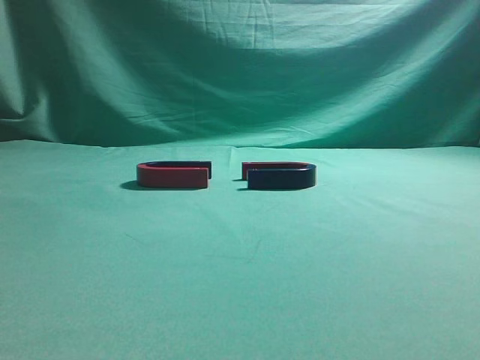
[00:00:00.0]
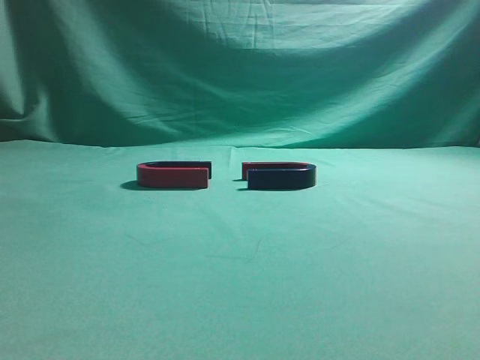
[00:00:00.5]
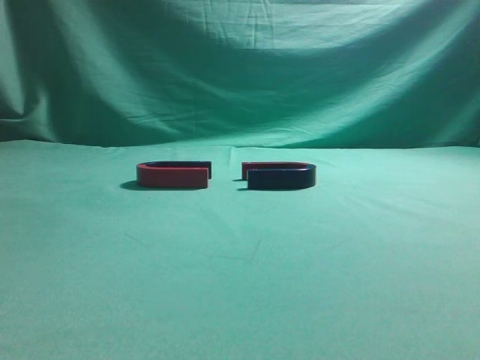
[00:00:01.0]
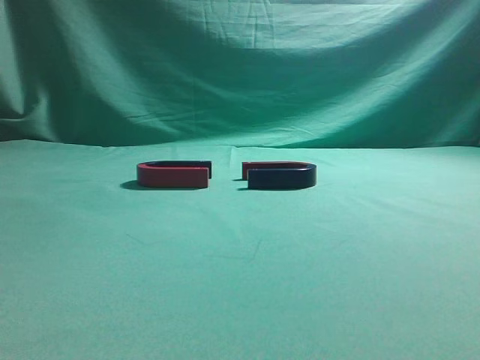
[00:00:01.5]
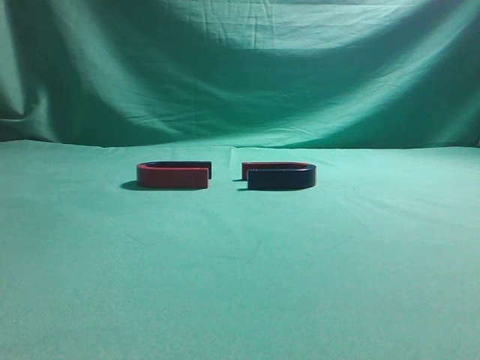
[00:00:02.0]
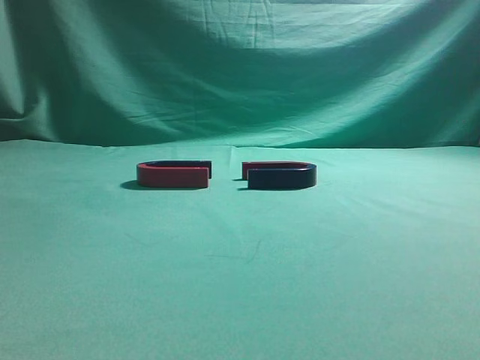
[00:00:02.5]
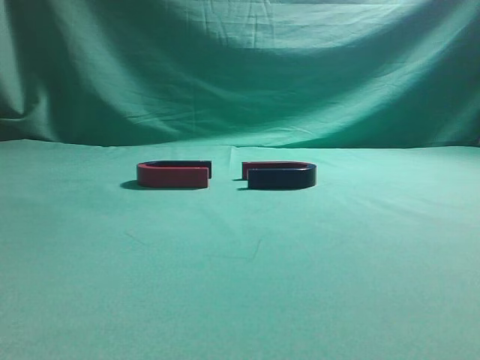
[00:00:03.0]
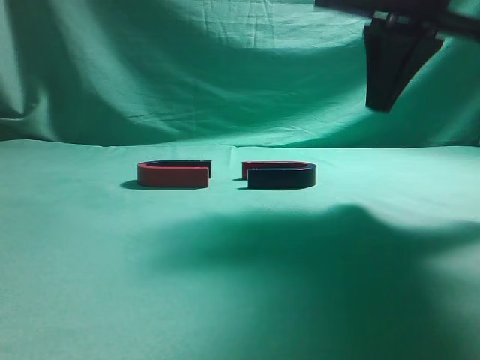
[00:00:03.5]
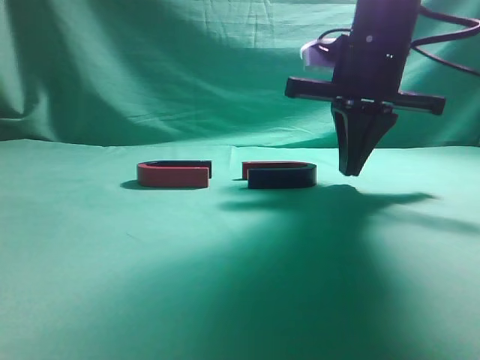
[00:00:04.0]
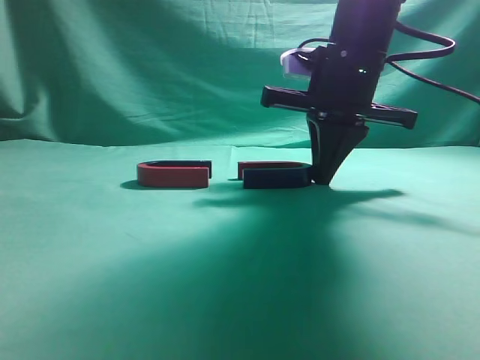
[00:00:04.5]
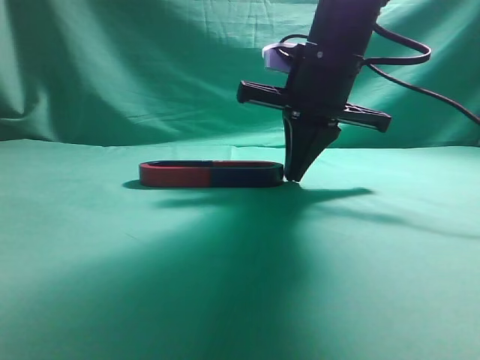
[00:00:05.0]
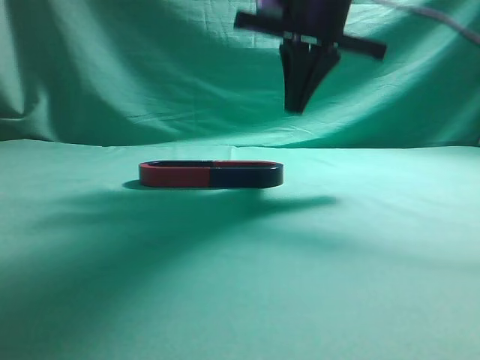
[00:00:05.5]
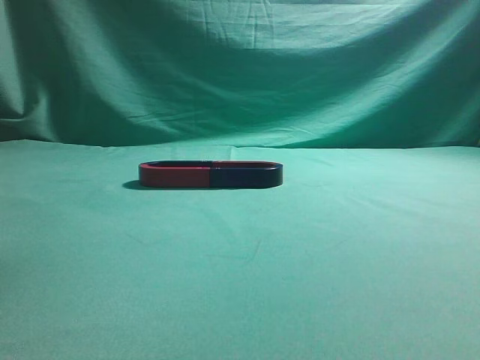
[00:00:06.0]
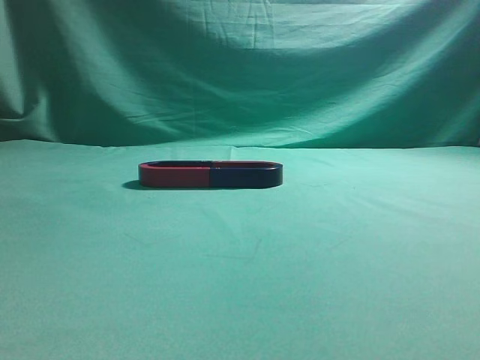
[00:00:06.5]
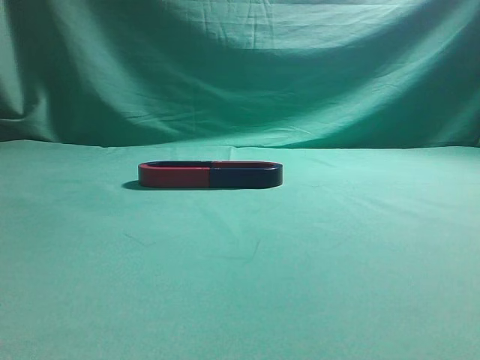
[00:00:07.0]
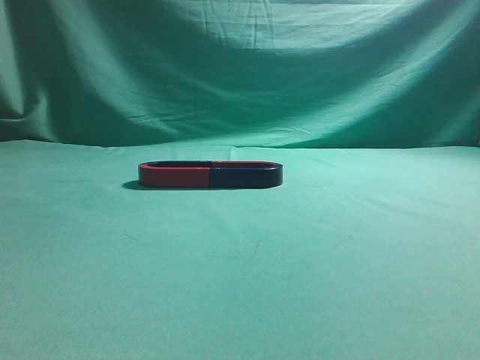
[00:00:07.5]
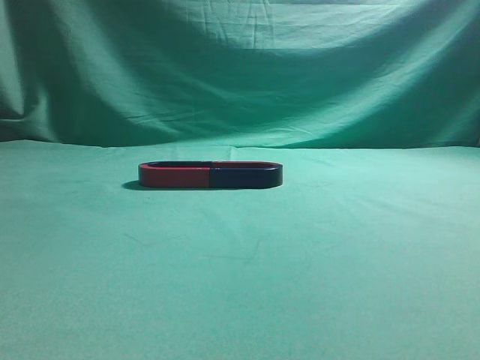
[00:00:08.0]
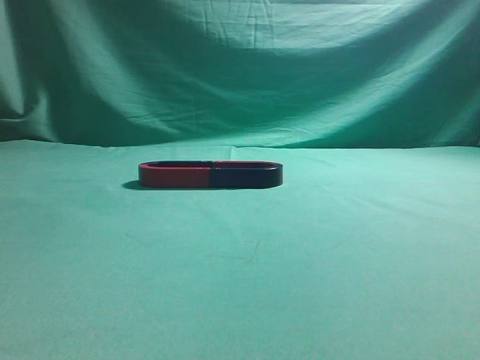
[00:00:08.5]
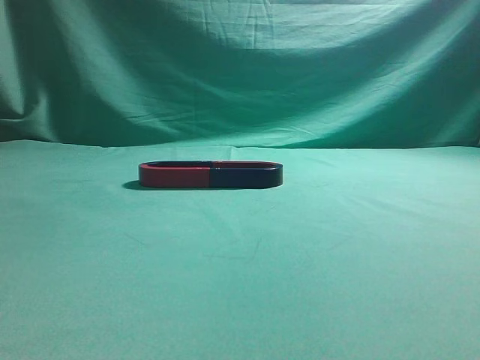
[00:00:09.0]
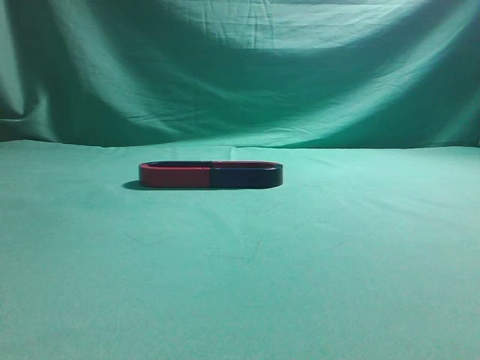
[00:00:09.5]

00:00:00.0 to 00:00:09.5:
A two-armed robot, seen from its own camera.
Task of the whole recording: push the magnet on the table from its original position to another position.
Step, 00:00:00.0 to 00:00:05.0: Push the magnet on the right to connect the magnet on the left.
00:00:02.0 to 00:00:04.0: The right gripper heads forward and to the left, covering about 35 cm.
00:00:04.0 to 00:00:05.5: The right gripper is displaced upward by approximately 5 cm.
00:00:05.5 to 00:00:07.5: The right gripper moves backward, to the right and upward, about 40 cm.
